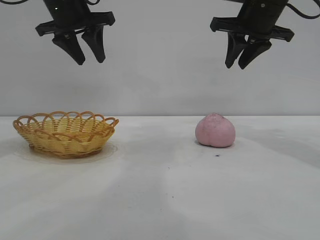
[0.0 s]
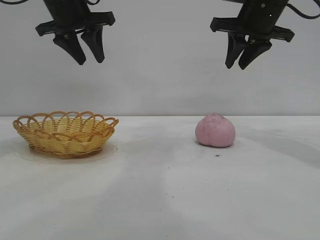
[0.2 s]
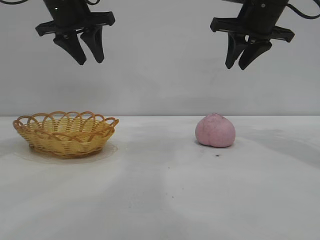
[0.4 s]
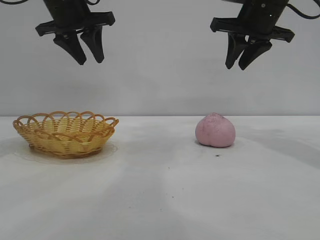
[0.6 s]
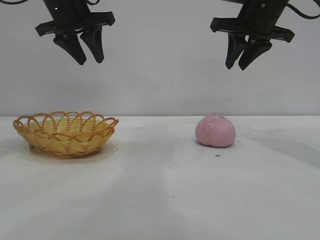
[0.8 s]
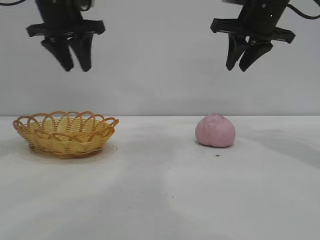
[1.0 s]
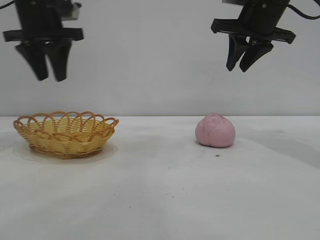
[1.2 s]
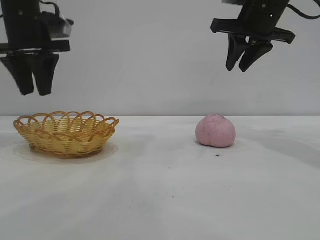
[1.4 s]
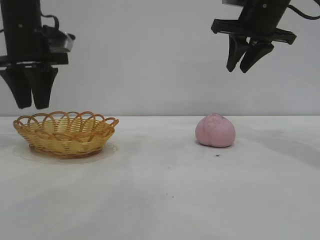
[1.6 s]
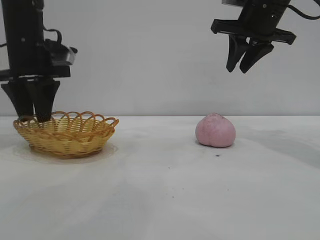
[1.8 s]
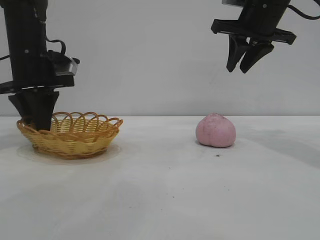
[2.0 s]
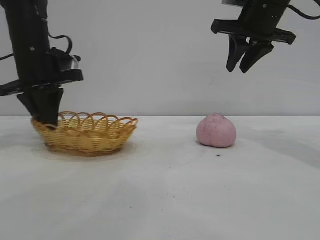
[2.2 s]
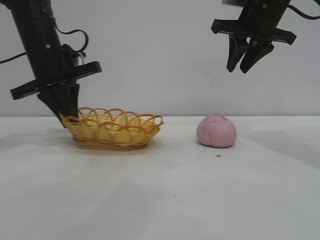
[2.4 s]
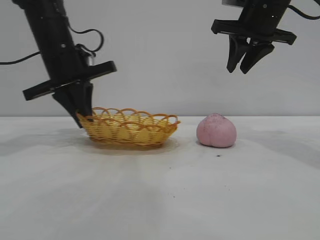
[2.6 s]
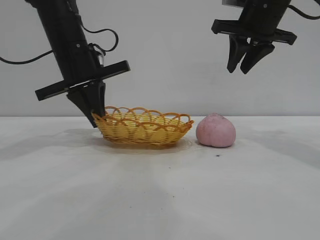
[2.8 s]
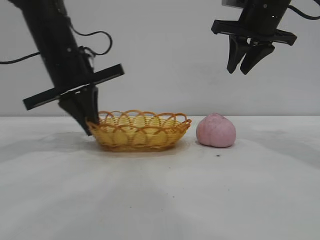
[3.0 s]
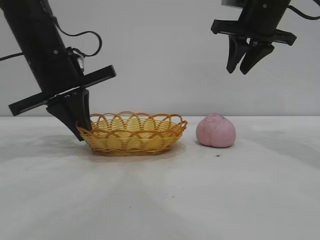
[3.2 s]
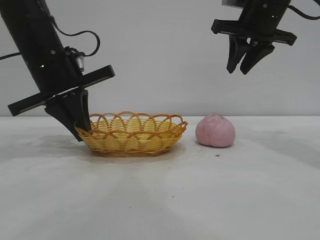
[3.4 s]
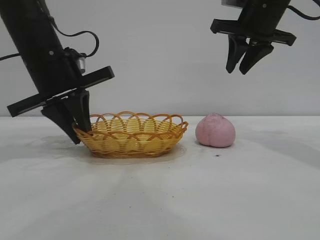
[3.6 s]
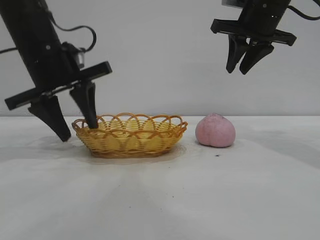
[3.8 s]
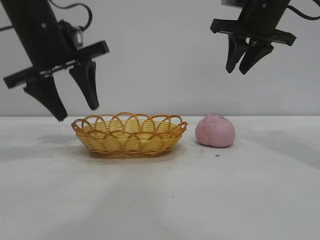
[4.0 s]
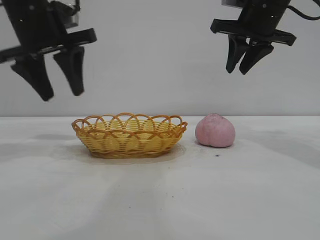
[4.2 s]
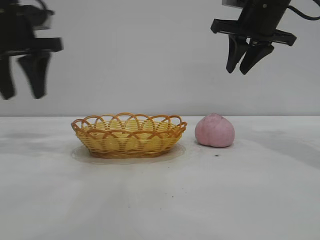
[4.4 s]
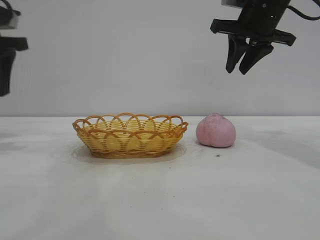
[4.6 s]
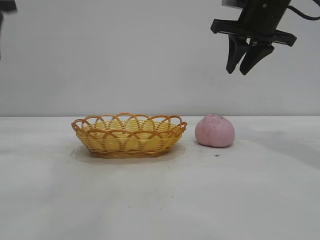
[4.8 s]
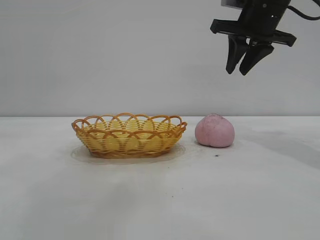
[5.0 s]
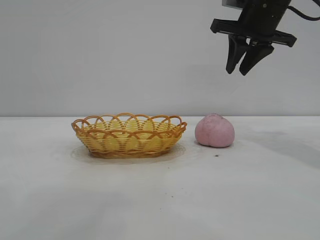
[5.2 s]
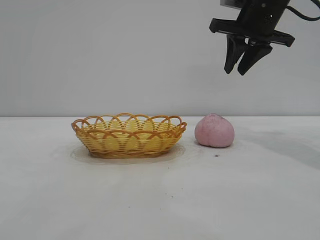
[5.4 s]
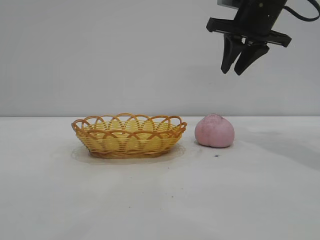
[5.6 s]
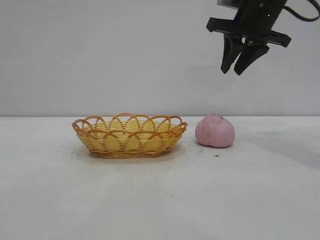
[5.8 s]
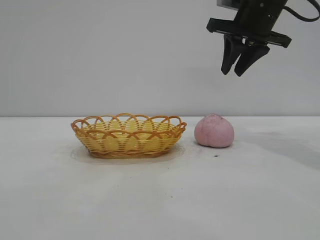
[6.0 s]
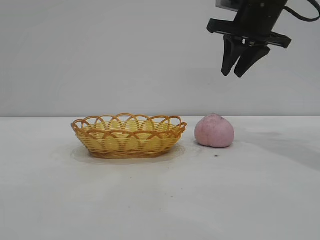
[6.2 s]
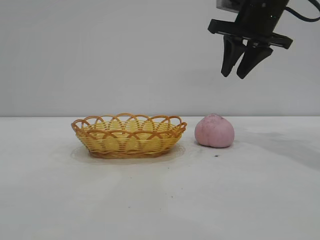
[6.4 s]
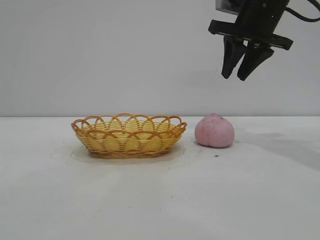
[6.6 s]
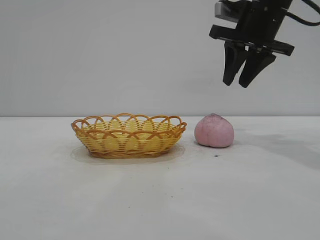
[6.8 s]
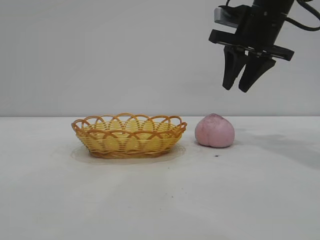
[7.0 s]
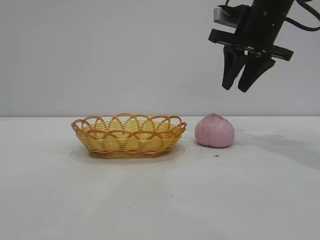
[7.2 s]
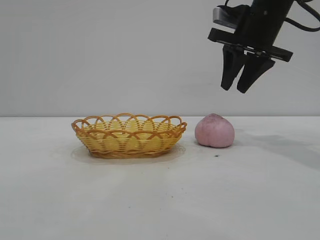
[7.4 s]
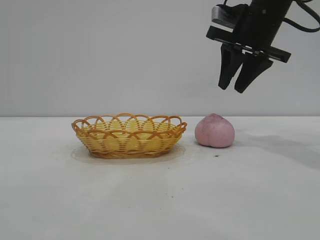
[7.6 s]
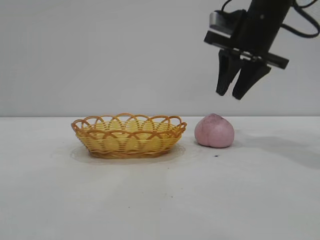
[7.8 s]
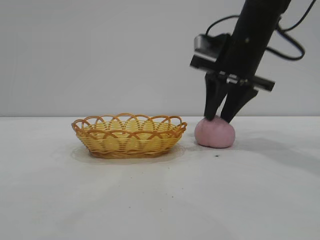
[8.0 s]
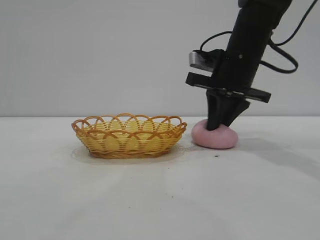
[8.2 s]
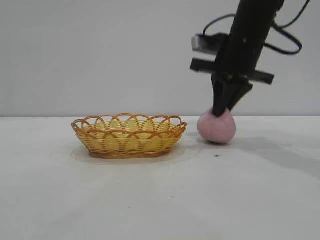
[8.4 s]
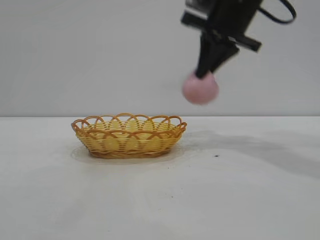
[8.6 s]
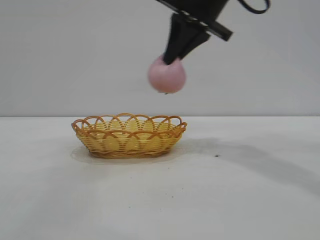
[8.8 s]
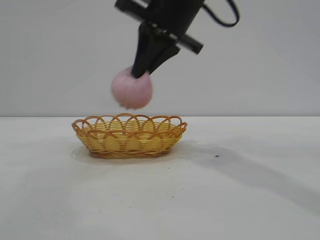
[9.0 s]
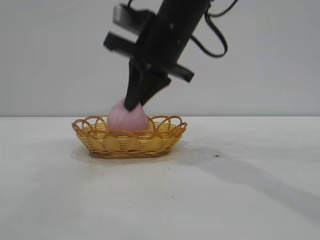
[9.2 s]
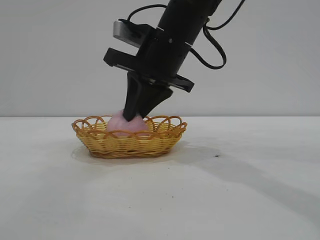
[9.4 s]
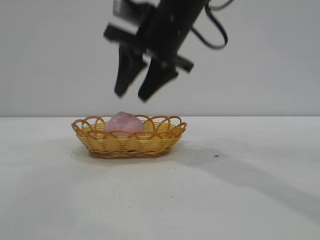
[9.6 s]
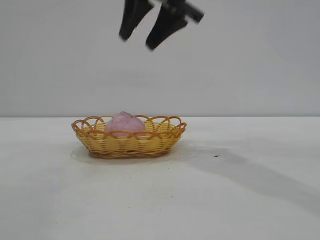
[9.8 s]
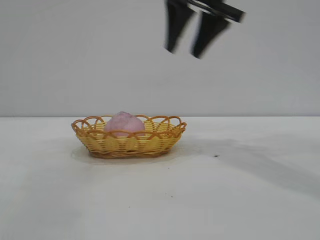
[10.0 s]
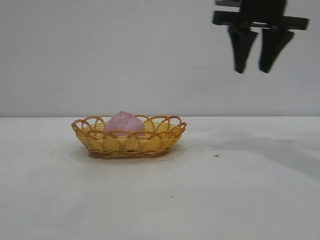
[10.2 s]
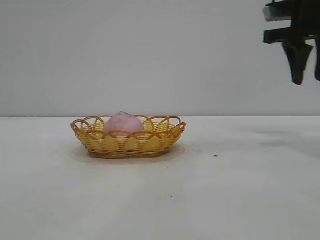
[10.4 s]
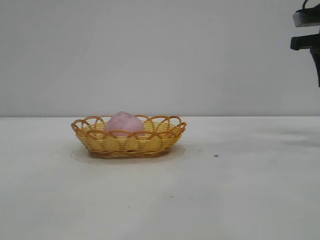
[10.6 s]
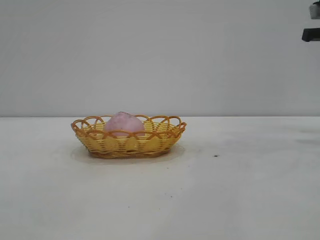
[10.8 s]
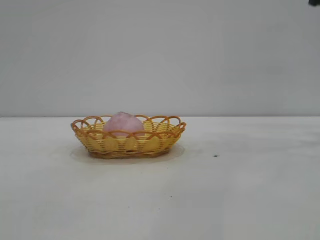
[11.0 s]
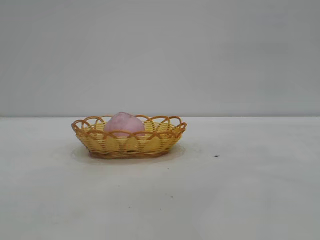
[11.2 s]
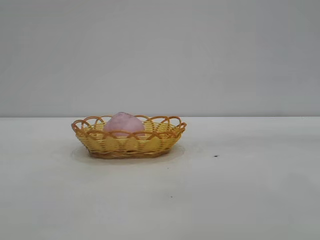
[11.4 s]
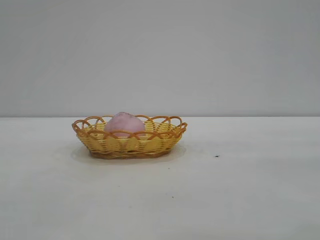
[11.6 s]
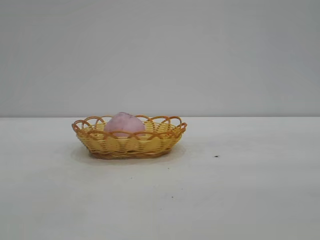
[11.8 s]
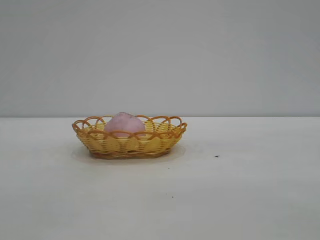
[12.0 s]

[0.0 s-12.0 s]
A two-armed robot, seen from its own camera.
Task of the whole recording: pick up the peach and put it into the basket.
Step, 0.0 to 4.0 s: Move the basket to the center of view.
Step, 4.2 to 8.4 s: Pick up the peach.
Step, 8.6 to 9.6 s: place the peach into the basket.

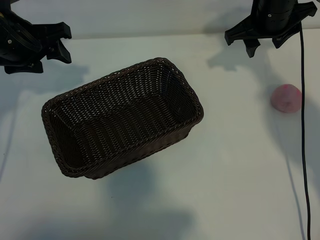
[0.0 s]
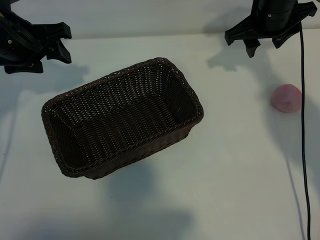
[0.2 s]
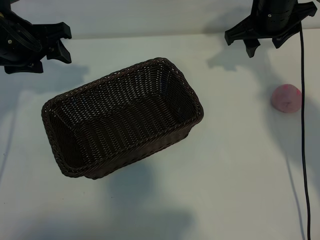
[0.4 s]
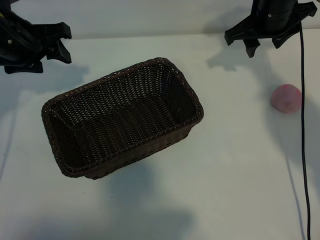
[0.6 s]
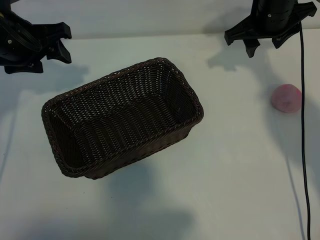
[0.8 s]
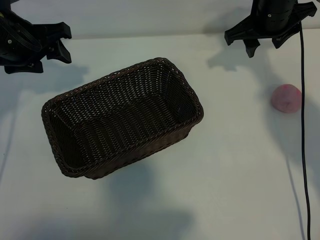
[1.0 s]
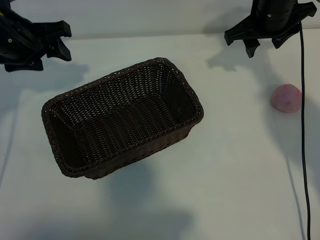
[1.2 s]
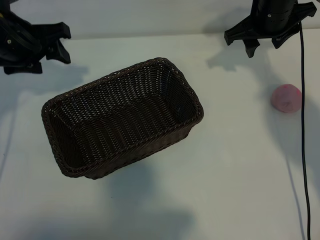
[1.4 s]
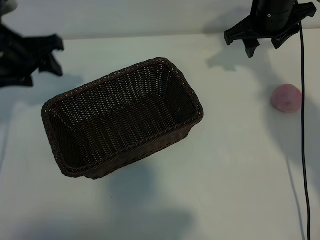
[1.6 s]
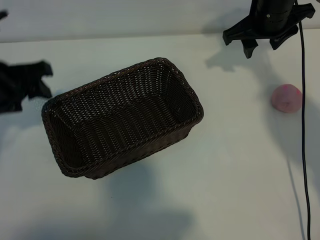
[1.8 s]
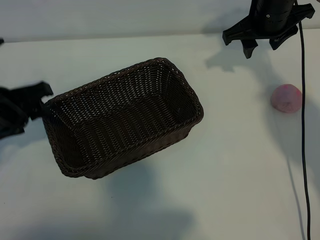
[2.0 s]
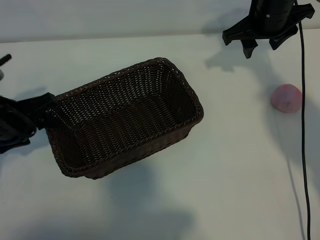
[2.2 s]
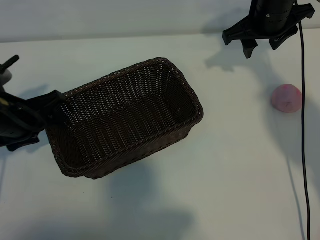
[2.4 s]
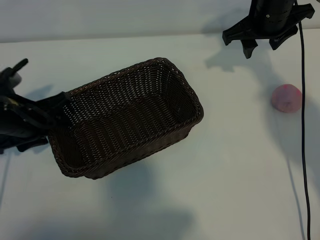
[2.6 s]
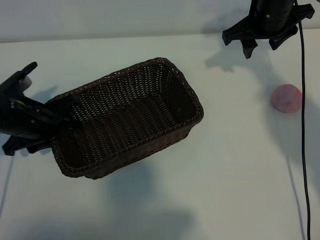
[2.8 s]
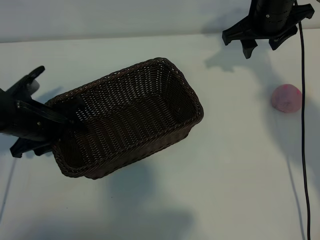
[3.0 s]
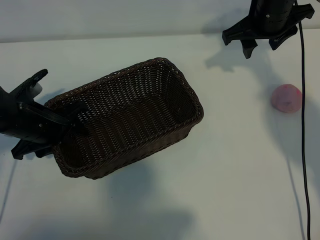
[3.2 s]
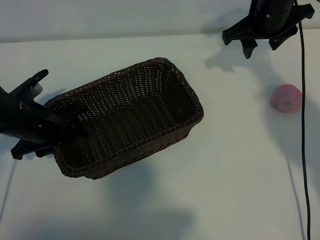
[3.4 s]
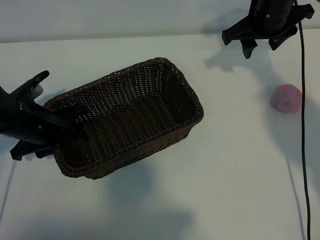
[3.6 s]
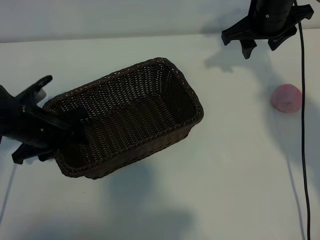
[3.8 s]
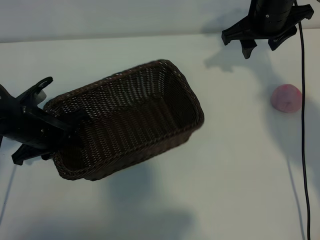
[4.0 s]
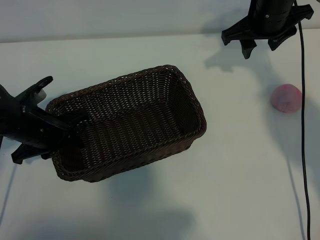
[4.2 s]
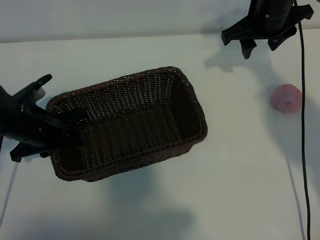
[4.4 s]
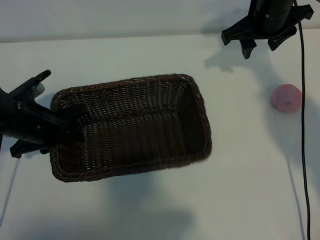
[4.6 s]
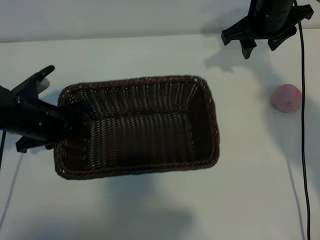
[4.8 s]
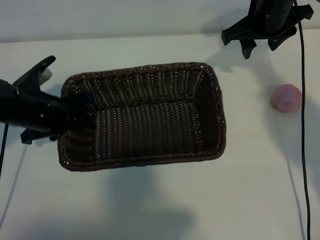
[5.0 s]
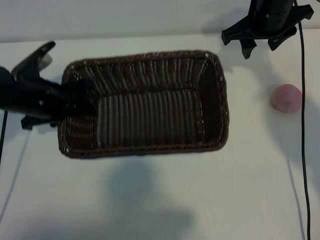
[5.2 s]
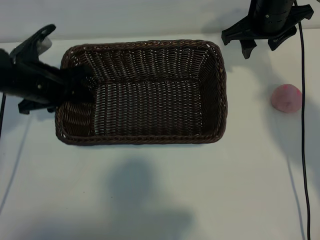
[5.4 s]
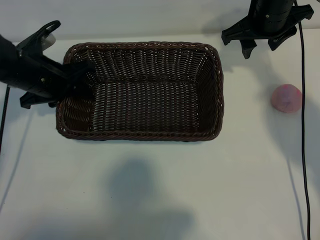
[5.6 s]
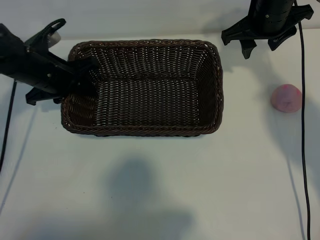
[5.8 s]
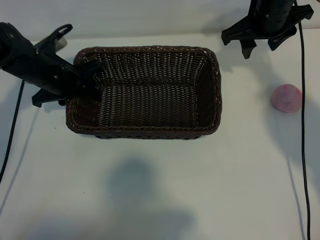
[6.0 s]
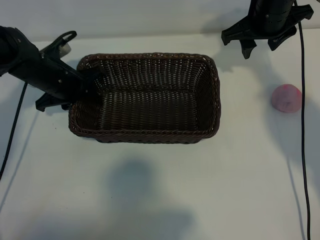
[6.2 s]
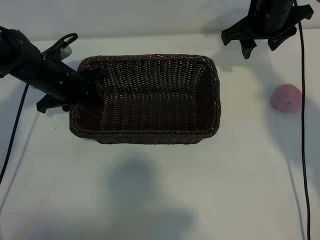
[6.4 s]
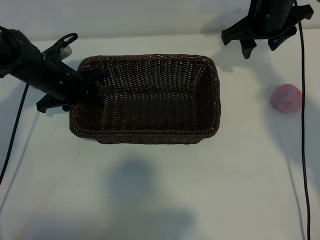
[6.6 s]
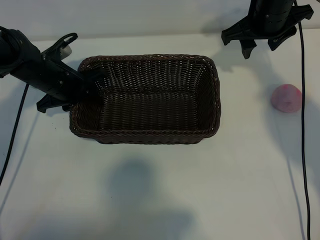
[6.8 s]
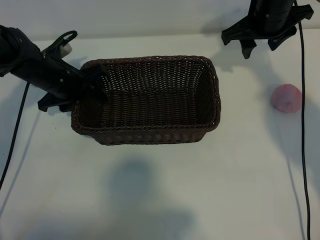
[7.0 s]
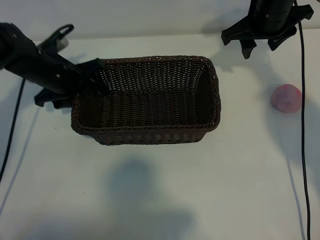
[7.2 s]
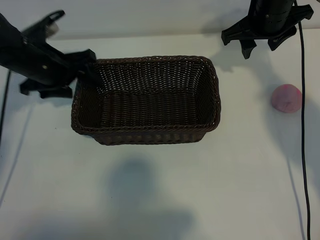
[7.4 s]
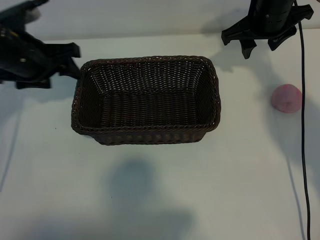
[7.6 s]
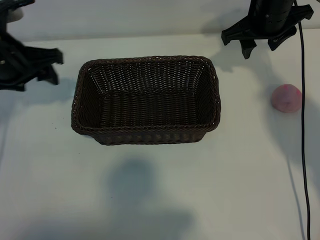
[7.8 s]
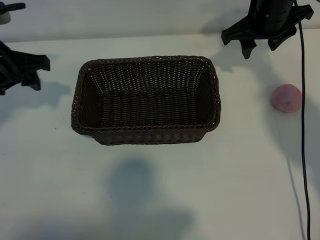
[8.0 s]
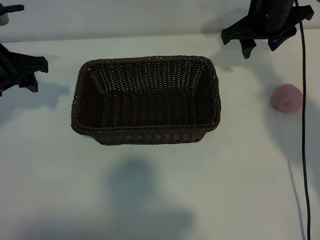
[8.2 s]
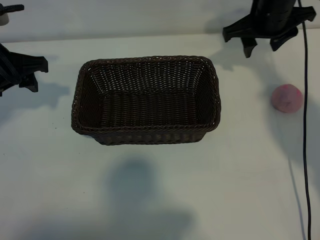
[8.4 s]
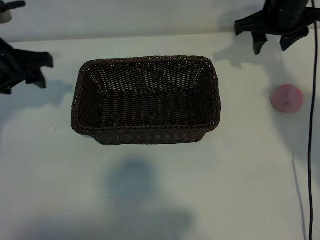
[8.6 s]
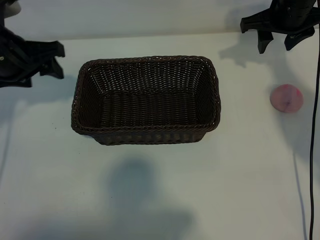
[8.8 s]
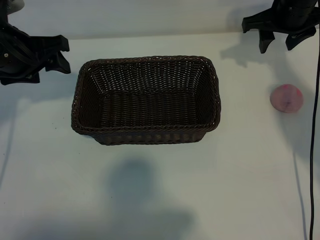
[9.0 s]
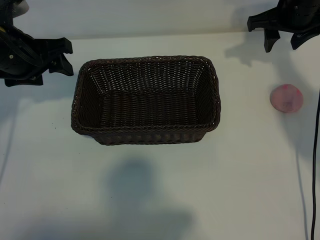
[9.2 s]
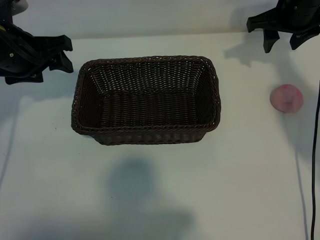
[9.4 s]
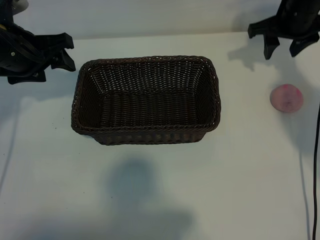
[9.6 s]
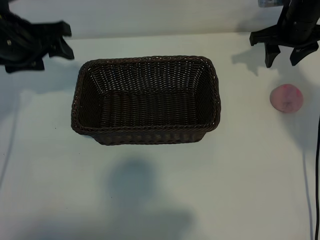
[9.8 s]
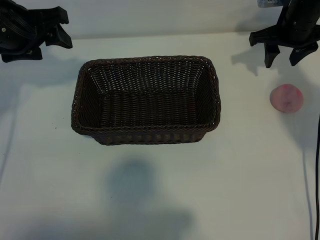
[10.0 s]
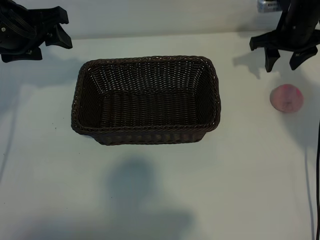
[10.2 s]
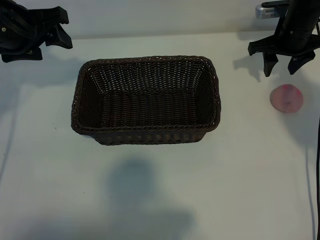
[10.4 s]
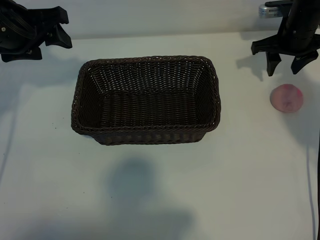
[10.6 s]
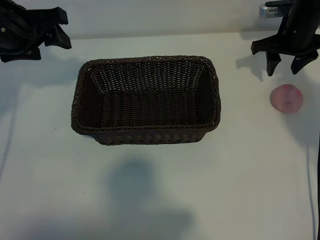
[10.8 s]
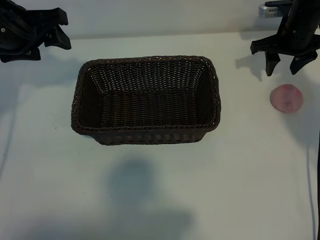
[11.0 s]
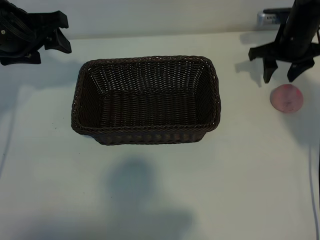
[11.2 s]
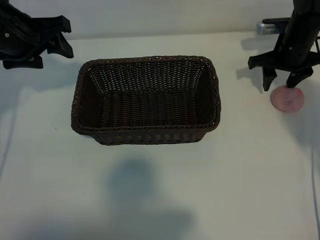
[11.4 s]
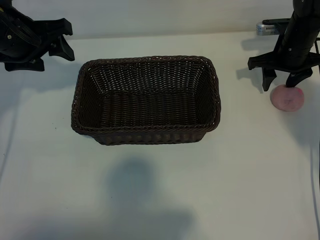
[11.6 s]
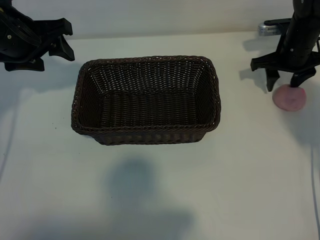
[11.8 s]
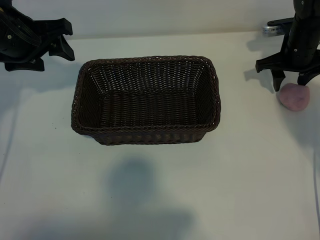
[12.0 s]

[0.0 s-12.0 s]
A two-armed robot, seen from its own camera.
Task of the whole recording: pick up the peach and put it into the basket.
Step, 1.2 to 4.0 s: Grasp the basket with left gripper.
Step, 4.2 to 7.2 s: Place the basket in the center of view with left gripper.
